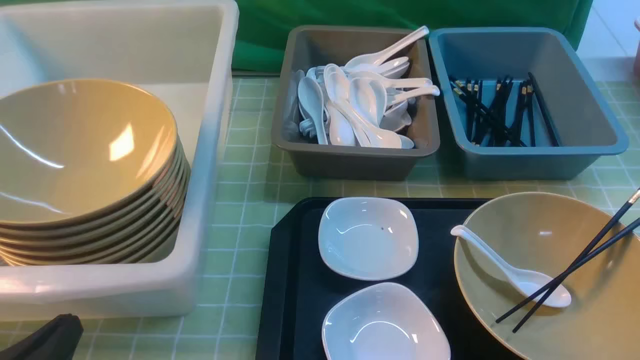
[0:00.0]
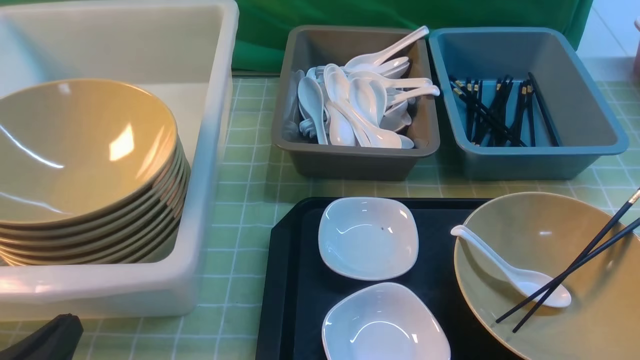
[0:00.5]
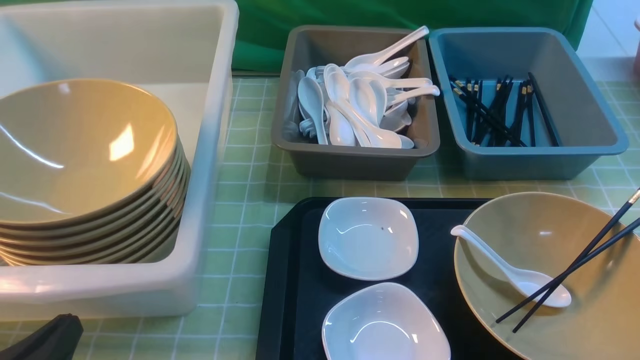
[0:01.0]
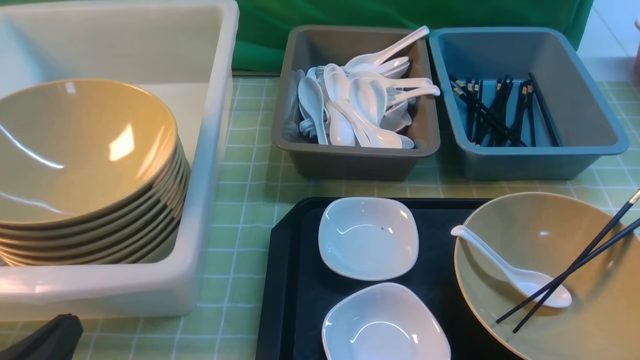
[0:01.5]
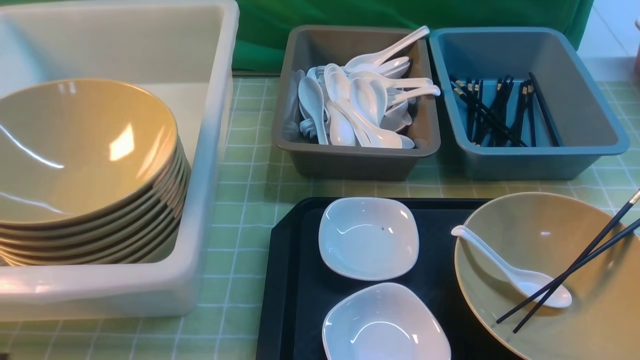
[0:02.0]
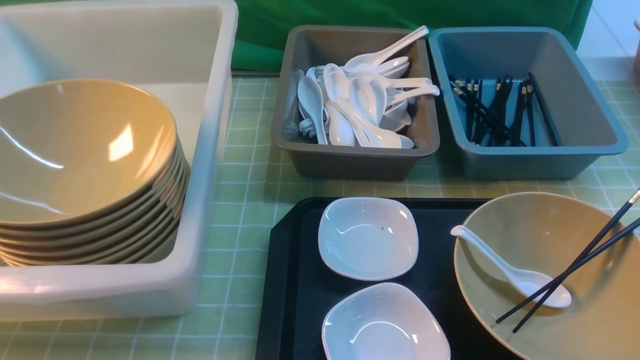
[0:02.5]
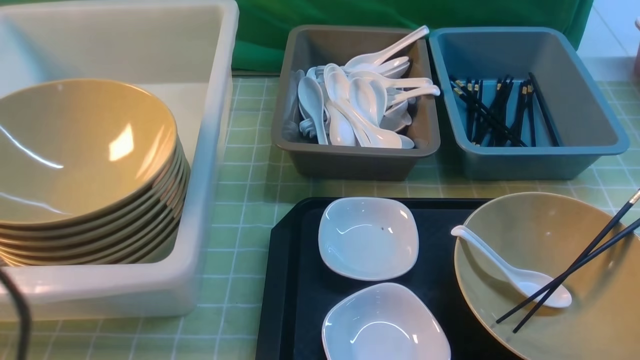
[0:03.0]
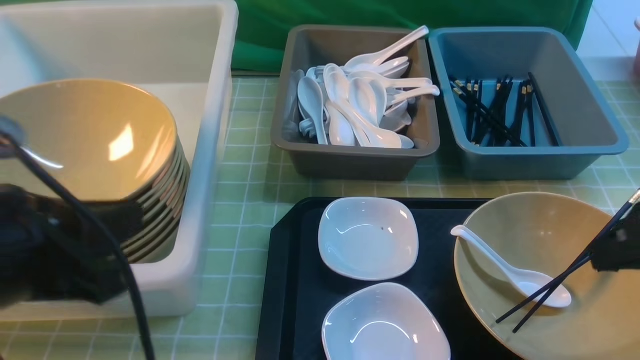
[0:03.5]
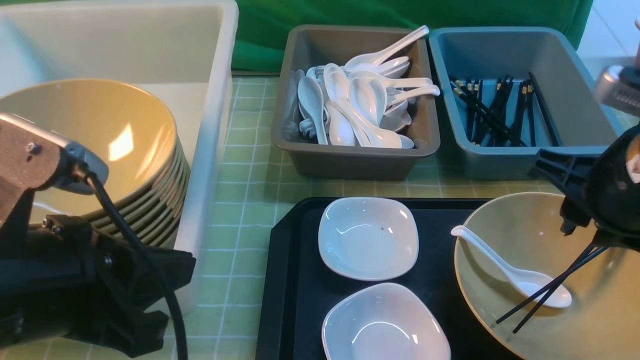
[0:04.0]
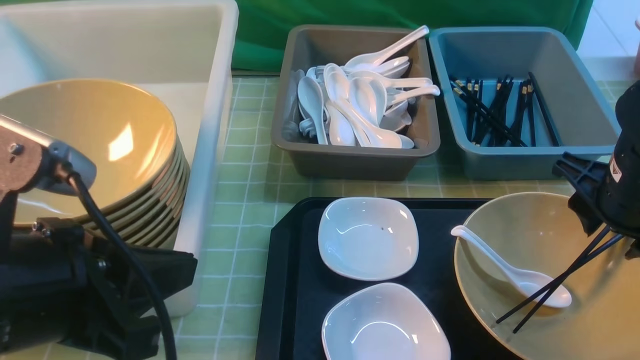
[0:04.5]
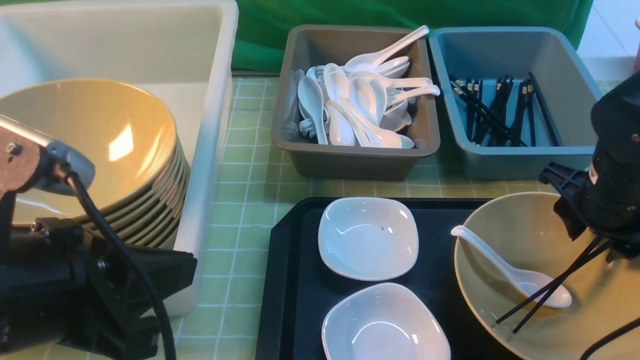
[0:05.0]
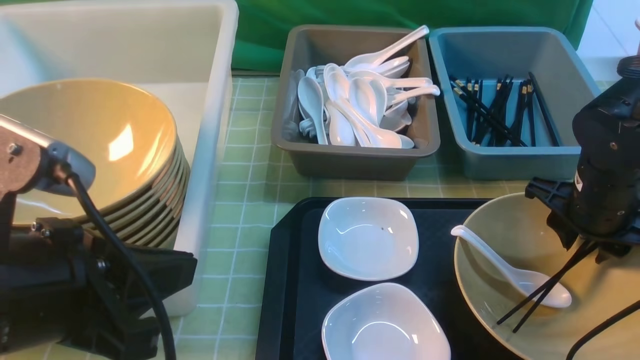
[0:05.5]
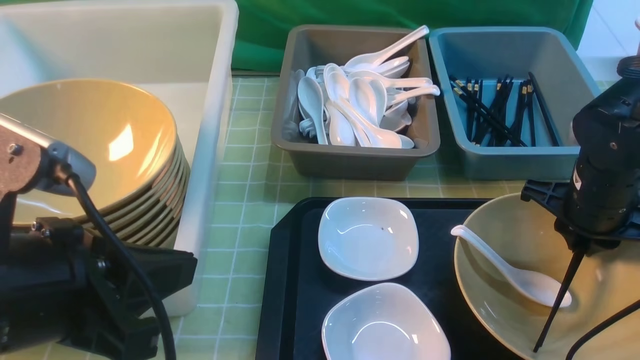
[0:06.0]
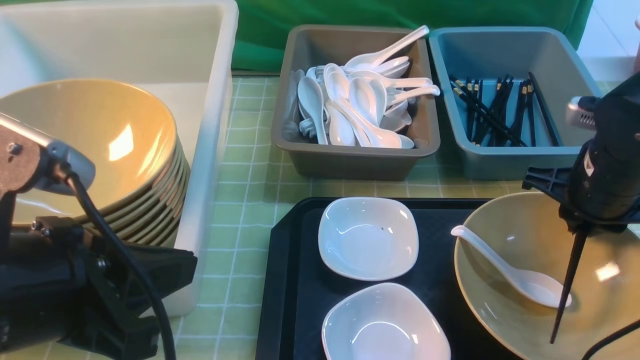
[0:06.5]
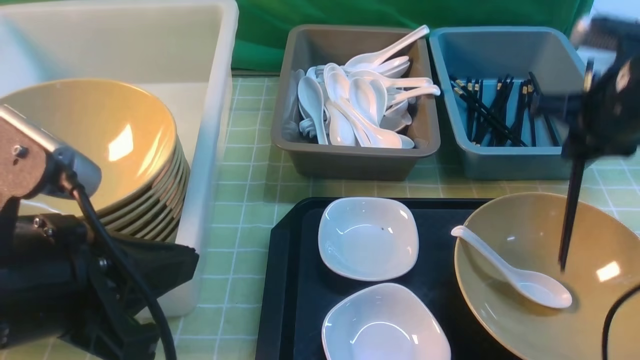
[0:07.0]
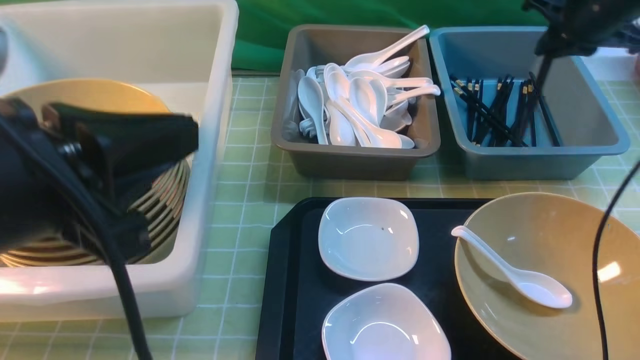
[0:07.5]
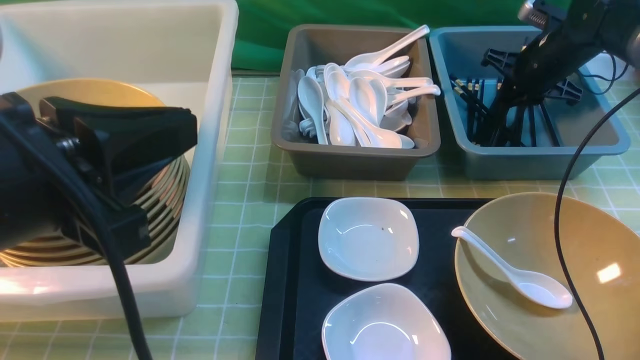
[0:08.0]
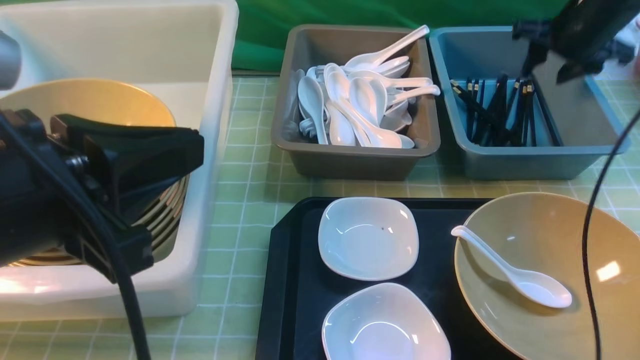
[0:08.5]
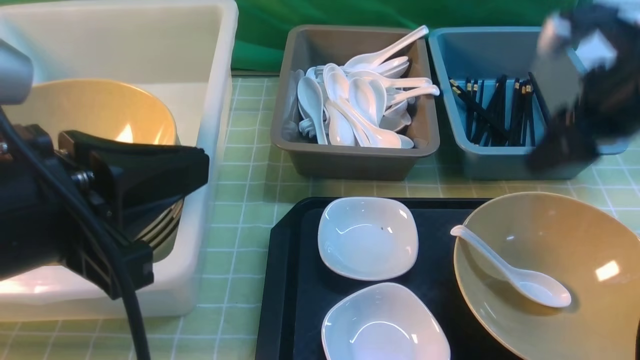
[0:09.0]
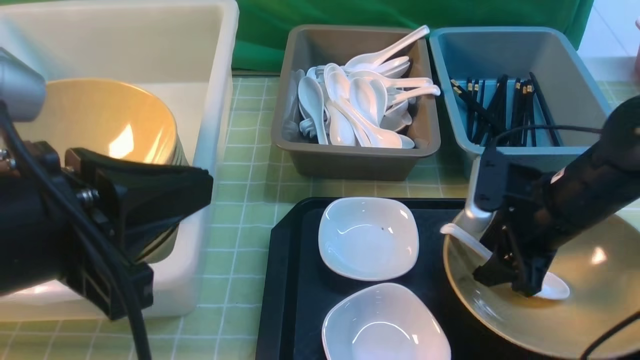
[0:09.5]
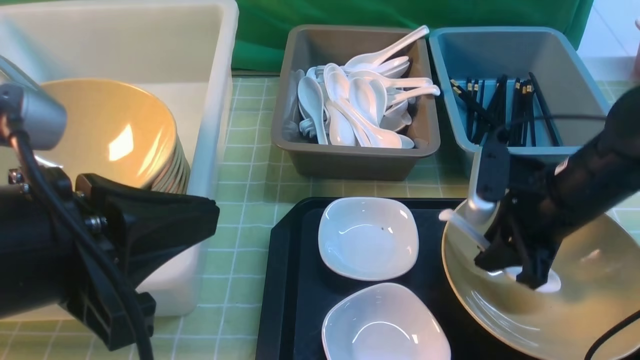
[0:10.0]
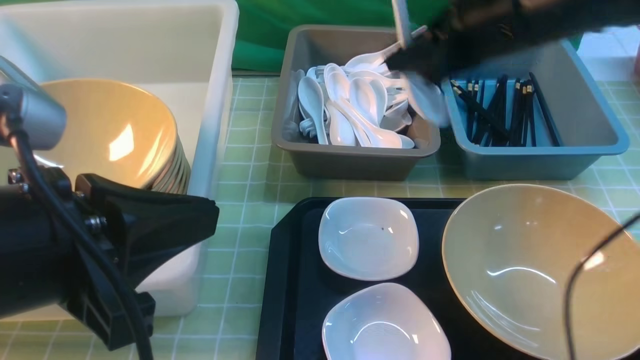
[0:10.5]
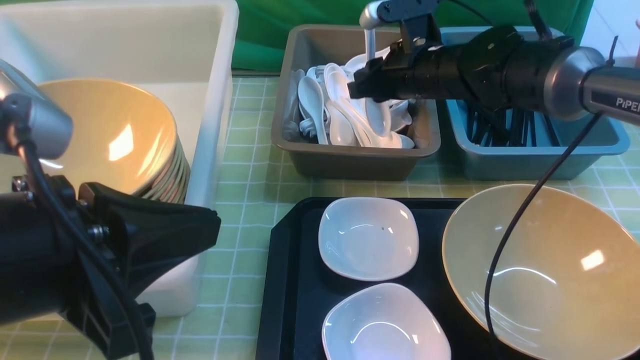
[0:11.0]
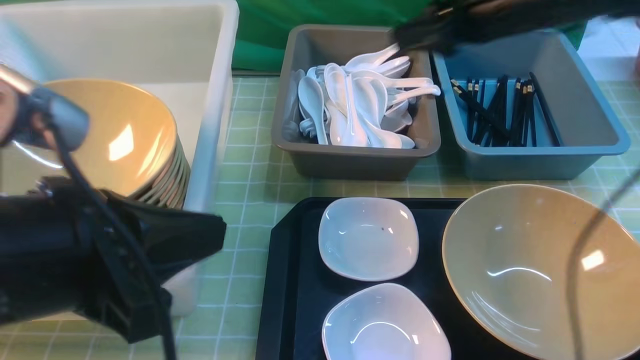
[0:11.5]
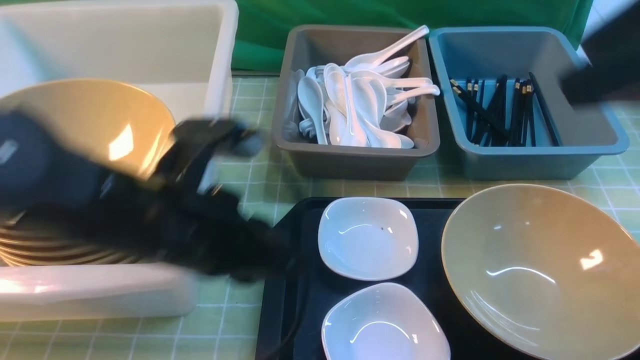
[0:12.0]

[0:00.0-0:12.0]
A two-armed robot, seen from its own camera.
Task of the whole recording: on green table put chopsticks spoon bowls plates into blue grey white boxes.
Step, 0:00.0 to 0:06.5: use the right arm to grab the chopsticks.
Step, 0:07.0 to 0:08.0: use the right arm to put the chopsticks into the small storage box on the right.
Step, 0:08.5 to 0:10.0: use the right arm to grab the soup spoon in the middle.
Step, 0:10.5 to 0:11.0: use the right arm to put the soup spoon into the small storage box in the middle.
0:00.0 to 0:02.0: The left gripper heads upward, covering some 5 cm.
0:02.0 to 0:04.0: The right gripper moves forward, to the left and upward, about 20 cm. The left gripper heads upward, to the right and forward, covering approximately 15 cm.
0:04.0 to 0:06.0: The right gripper goes approximately 10 cm downward and forward.
0:06.0 to 0:08.0: The left gripper heads upward, covering approximately 5 cm, while the right gripper is displaced forward by some 20 cm.
0:08.0 to 0:10.0: The right gripper travels backward by some 20 cm, and opens, then closes once more.
0:10.0 to 0:12.0: The left gripper is displaced forward, to the right and downward by about 15 cm, while the right gripper moves upward and backward, about 25 cm, and opens its fingers.

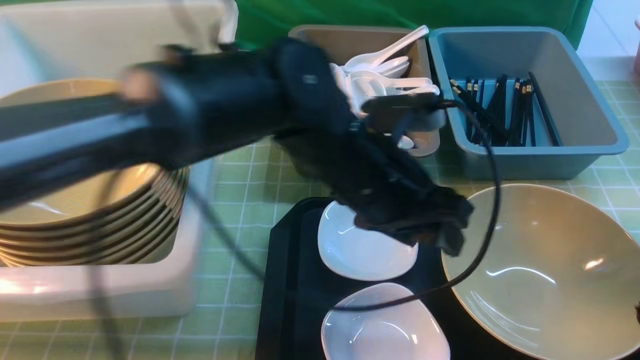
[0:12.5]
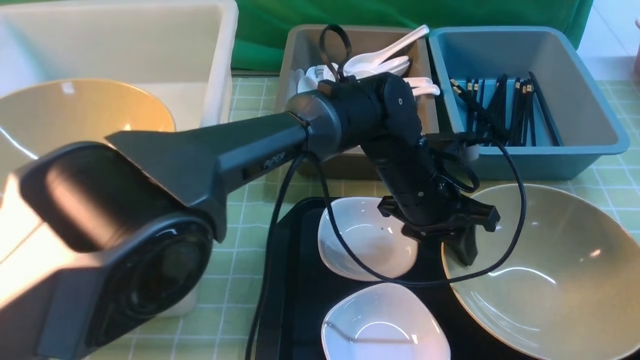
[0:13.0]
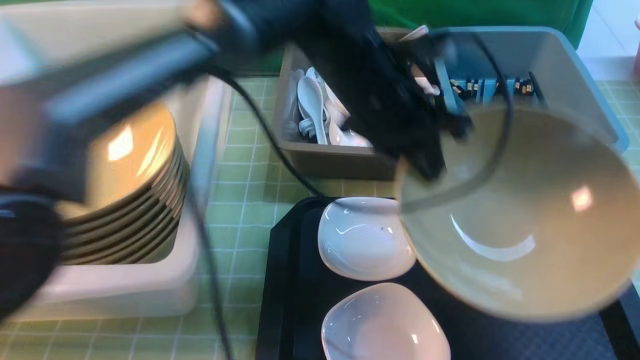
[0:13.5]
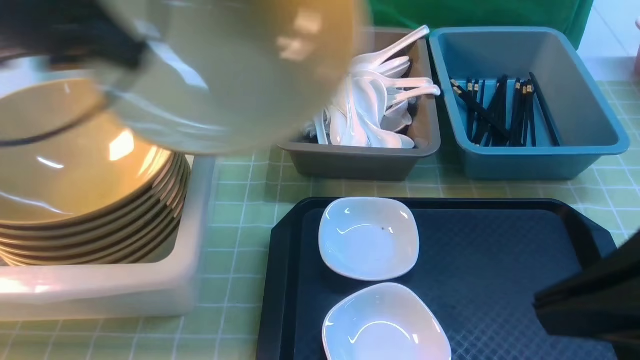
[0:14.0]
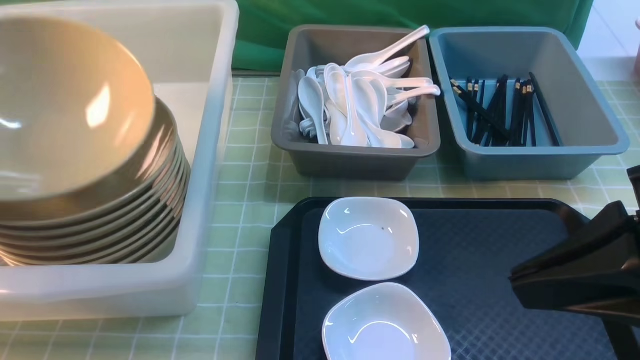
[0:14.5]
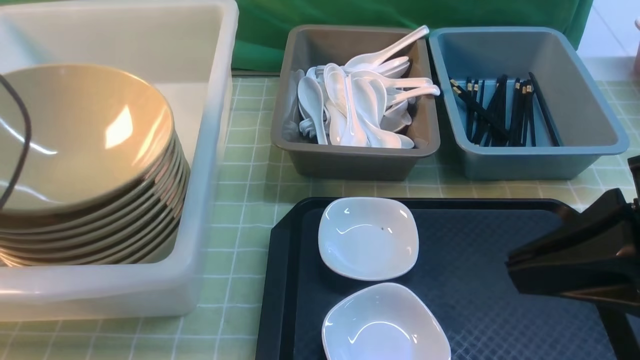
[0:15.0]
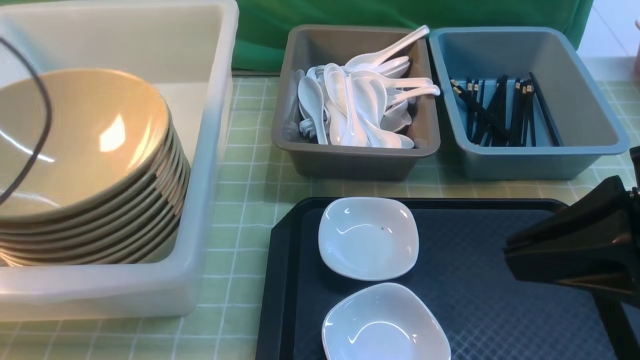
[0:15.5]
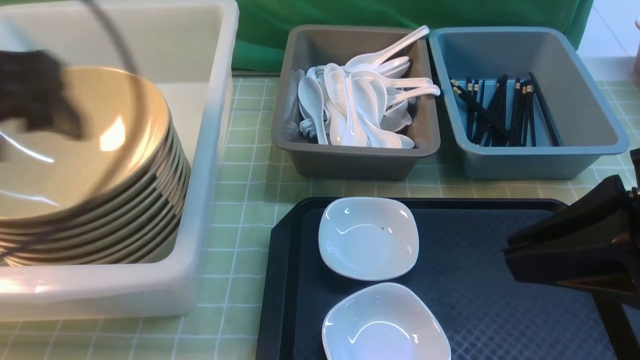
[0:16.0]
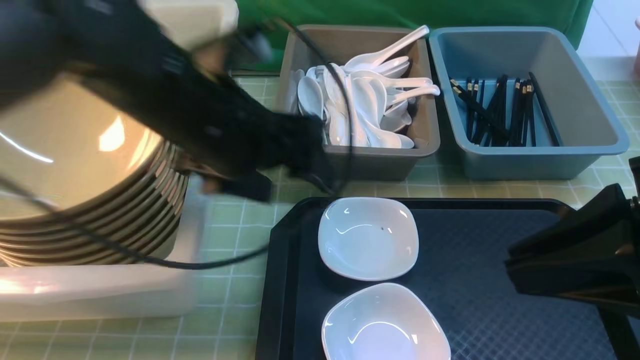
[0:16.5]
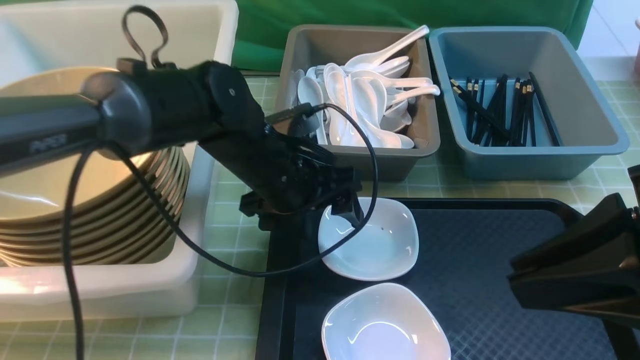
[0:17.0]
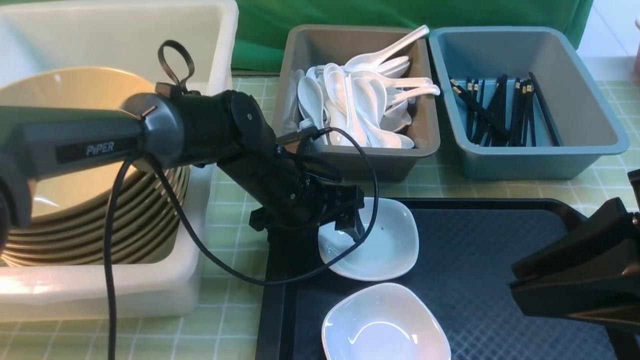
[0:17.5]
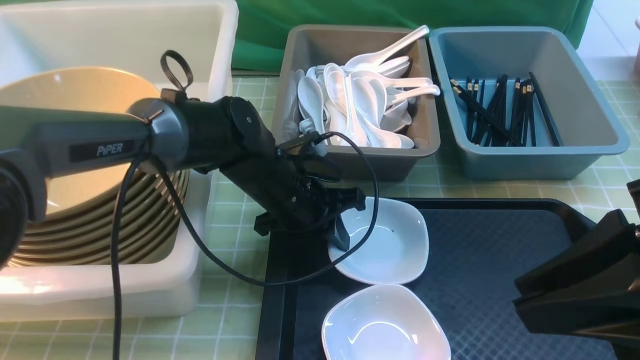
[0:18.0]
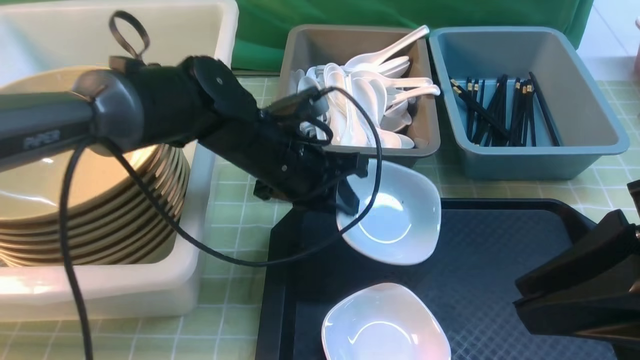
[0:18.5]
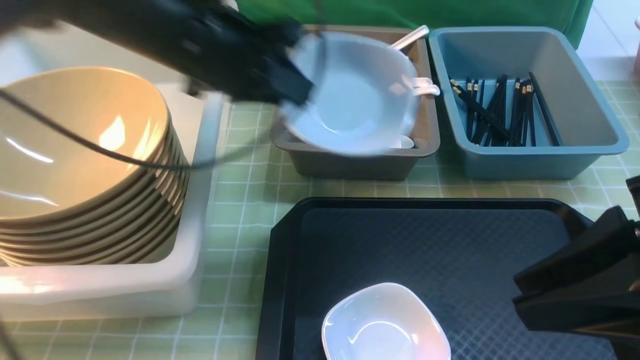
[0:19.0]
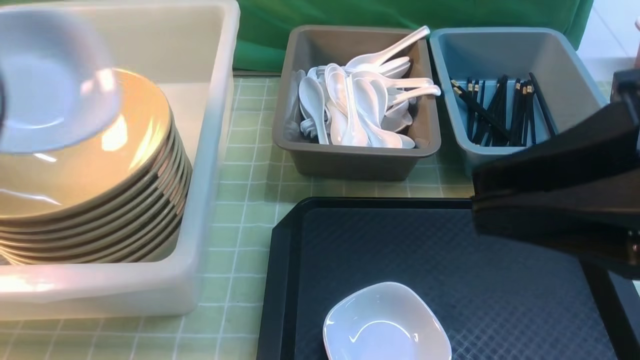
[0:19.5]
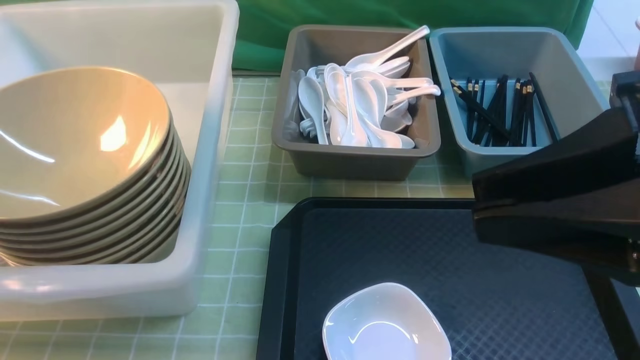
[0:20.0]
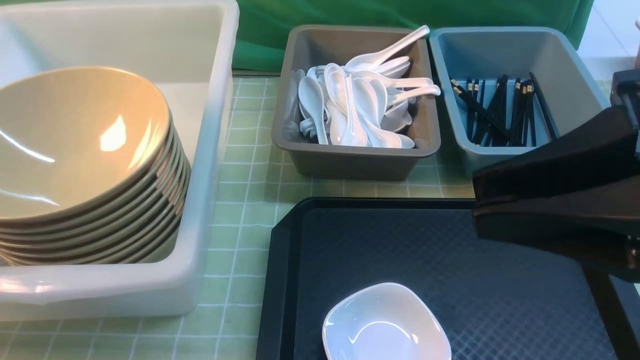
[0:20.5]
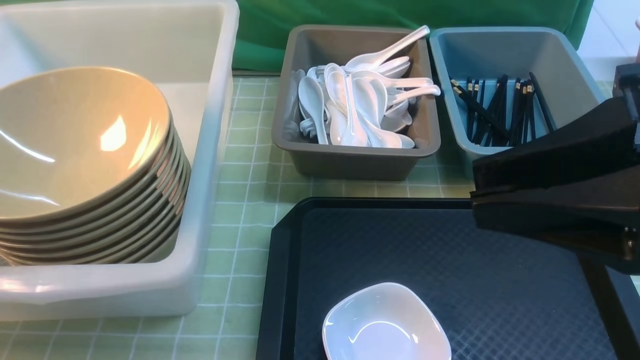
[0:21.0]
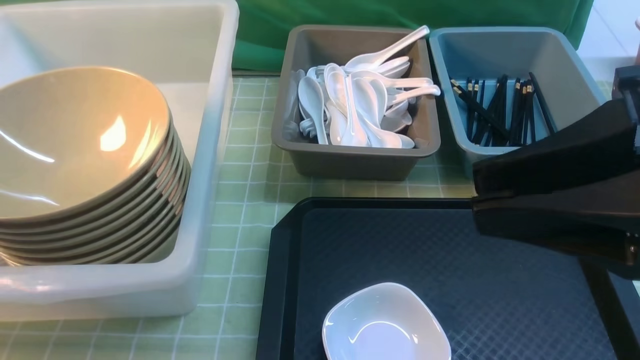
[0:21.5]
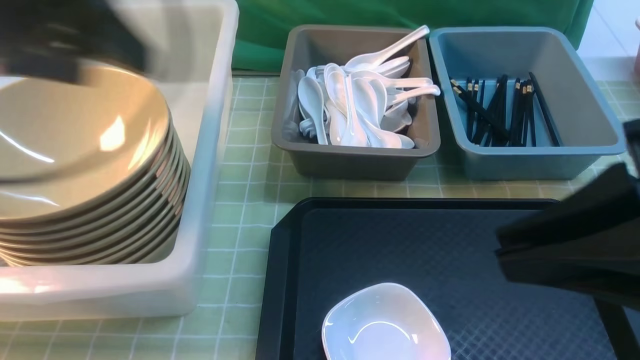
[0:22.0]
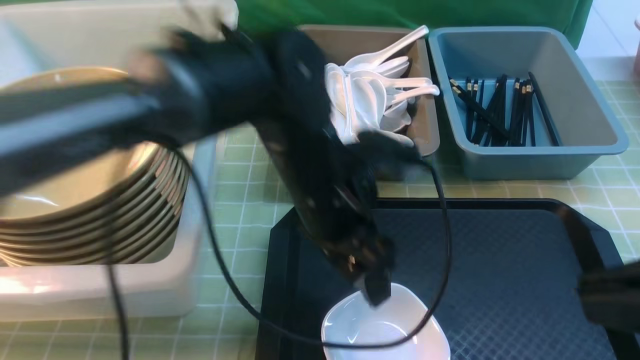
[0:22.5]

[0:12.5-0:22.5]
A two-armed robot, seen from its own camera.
Task of the whole recording: on green table put chopsticks spoon bowls plates into blue grey white boxes.
Step, 0:14.0 to 0:15.5: use the left arm to put the noodle bowl into the large storage box on the left.
Step, 0:16.0 to 0:18.0: use the left arm to grab the plate.
Step, 0:18.5 to 0:21.0: use the left arm to put the plate into the large storage box on the left.
0:12.5 to 0:14.5: The left gripper heads to the left, covering some 40 cm, and closes up. Meanwhile the right gripper goes some 5 cm forward.
0:14.5 to 0:16.5: The left gripper goes about 25 cm to the right, and opens up.
0:16.5 to 0:18.5: The left gripper moves downward and forward, roughly 10 cm, and closes up.
0:18.5 to 0:20.5: The left gripper goes roughly 40 cm to the left.
0:20.5 to 0:22.5: The right gripper goes approximately 5 cm backward, and closes. Meanwhile the left gripper travels to the right by some 40 cm, and opens its fingers.
